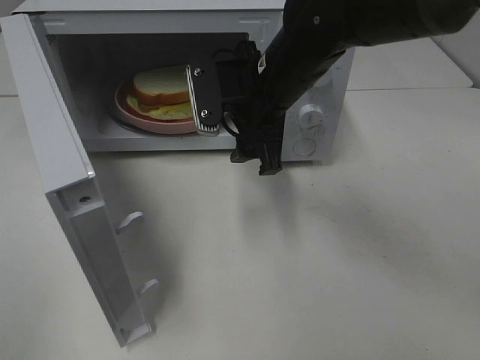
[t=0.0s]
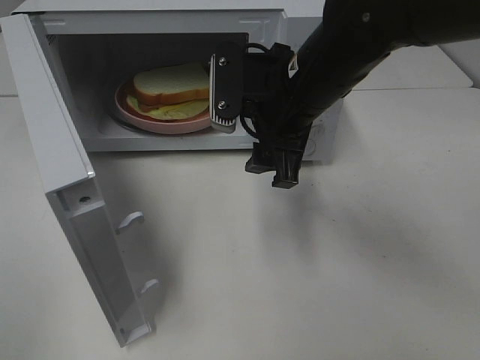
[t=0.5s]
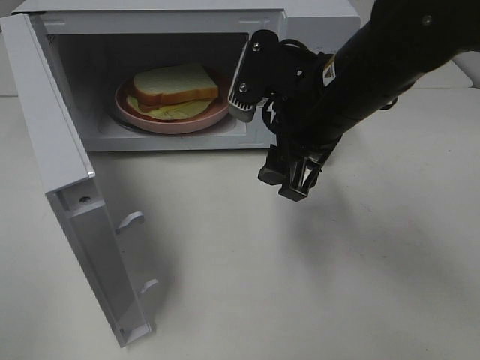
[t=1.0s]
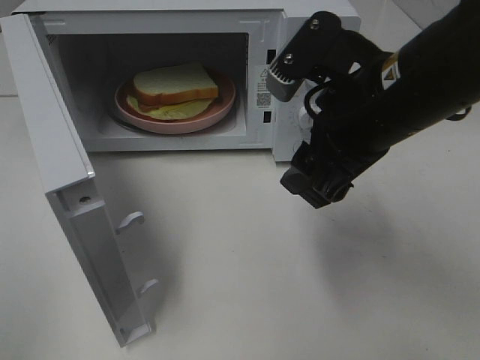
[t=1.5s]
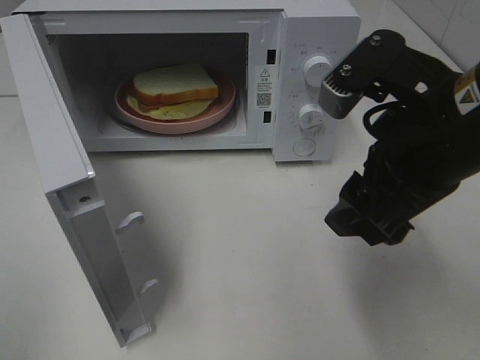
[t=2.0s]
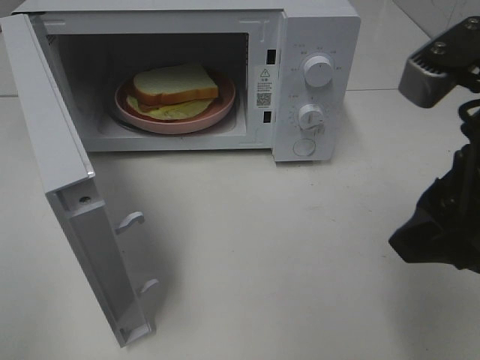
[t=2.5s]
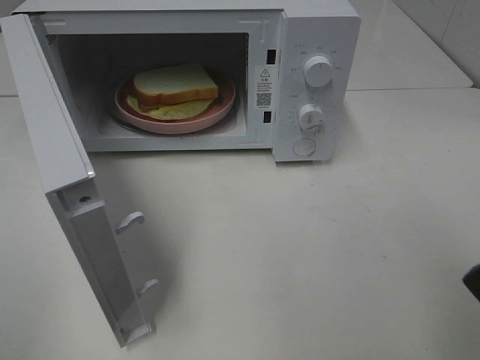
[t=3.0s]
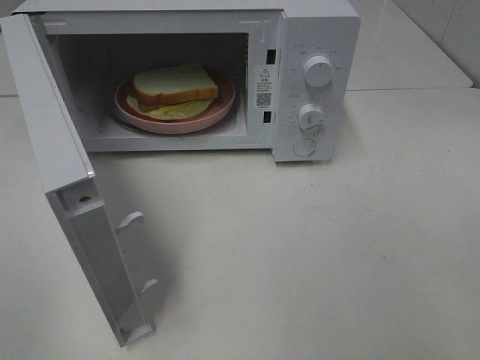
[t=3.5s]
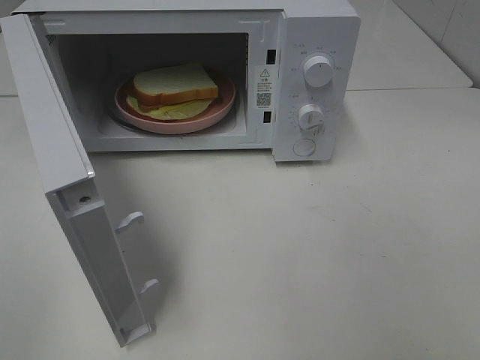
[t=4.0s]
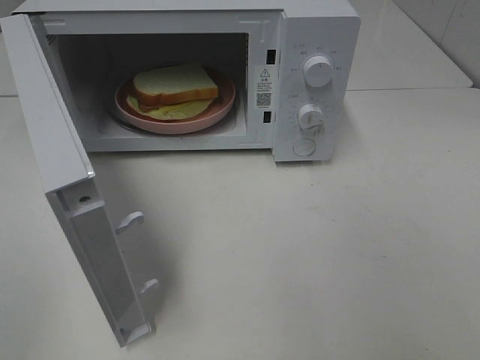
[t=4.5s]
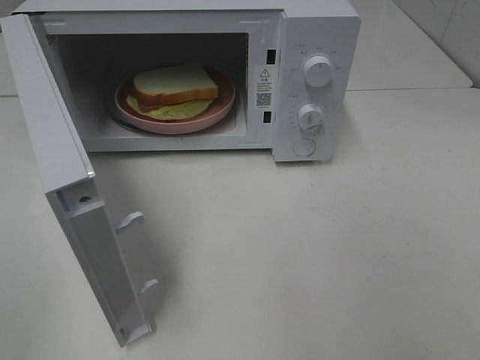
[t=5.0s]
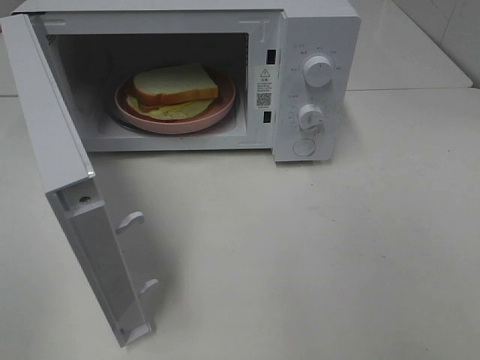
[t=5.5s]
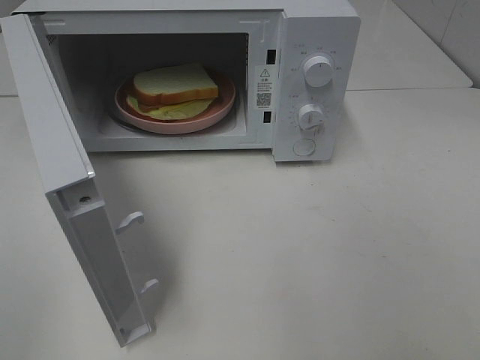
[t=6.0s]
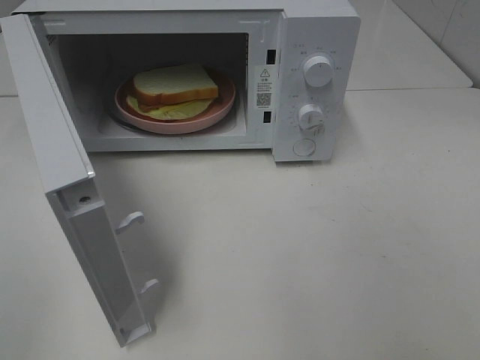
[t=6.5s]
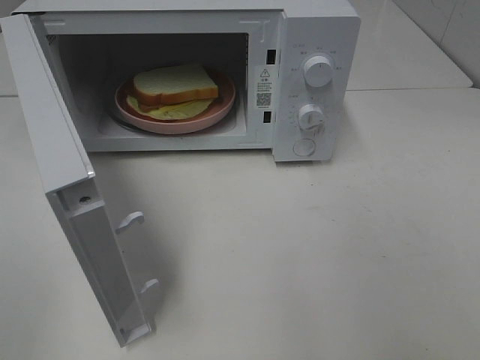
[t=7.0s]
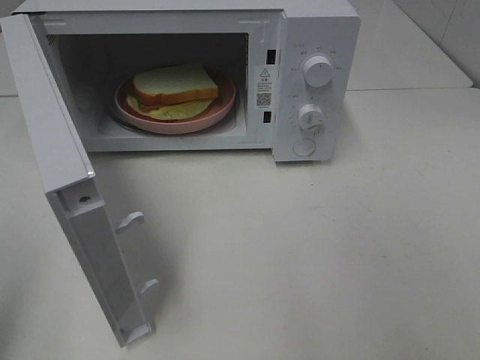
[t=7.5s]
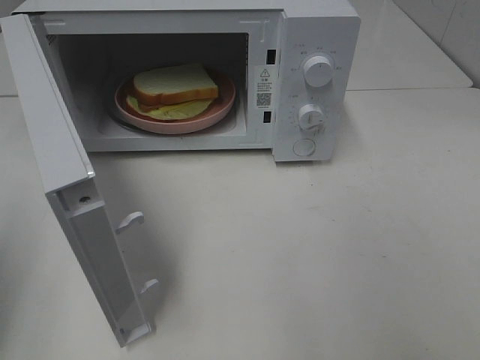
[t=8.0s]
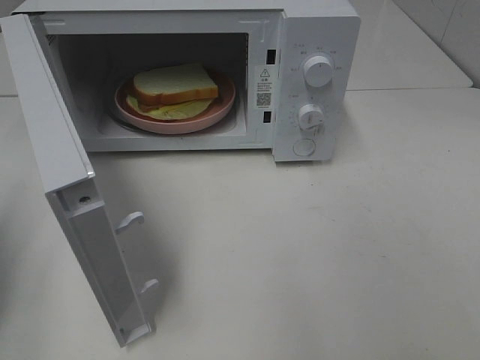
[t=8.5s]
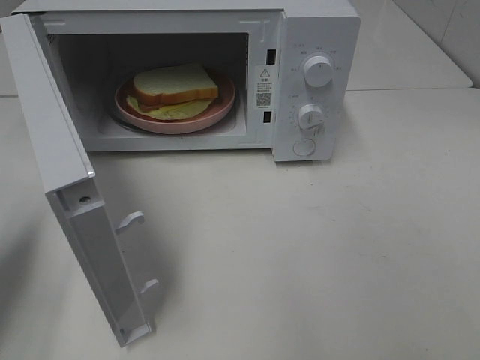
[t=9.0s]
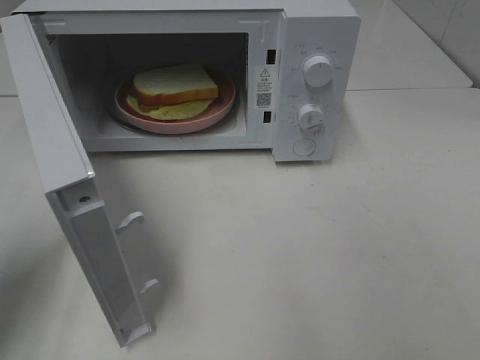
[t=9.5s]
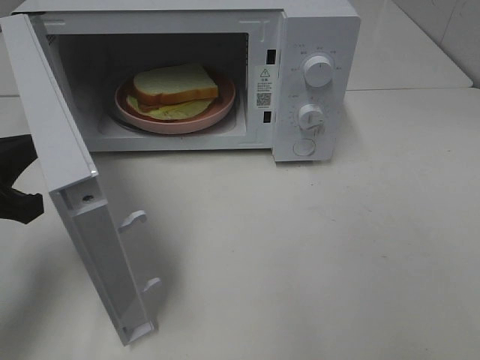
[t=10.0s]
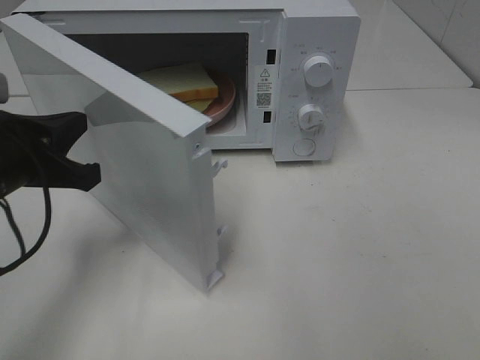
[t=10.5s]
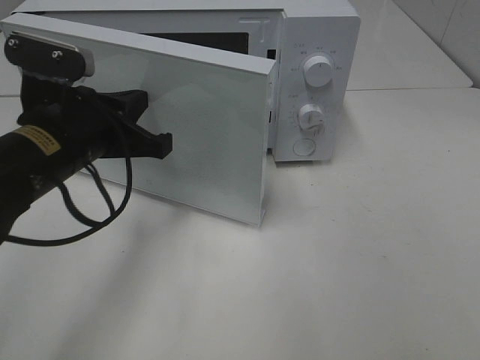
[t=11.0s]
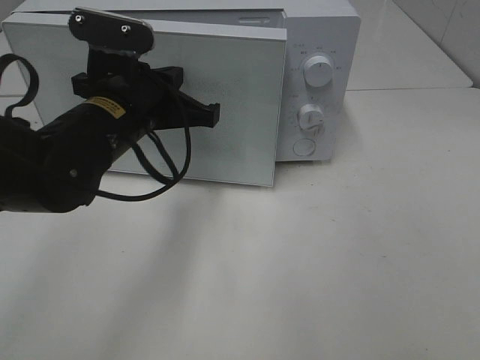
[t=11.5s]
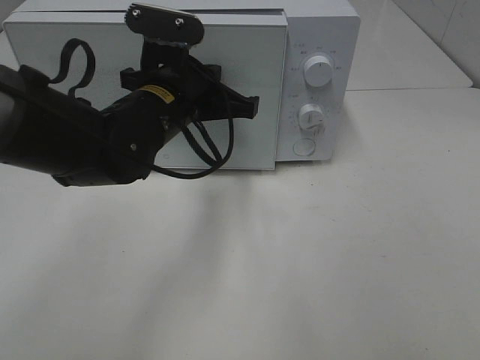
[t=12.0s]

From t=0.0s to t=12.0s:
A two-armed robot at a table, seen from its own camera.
Task of the whole recording: Heat Sandwich.
From t=0.0s to t=2.0s: The right gripper travels backward and to the right by roughly 20 cm.
From t=2.0s to t=4.0s: The right gripper shifts about 20 cm backward and to the right.
From t=8.0s to t=10.0s: The left gripper is displaced downward, forward and to the right by some 15 cm.
From t=10.0s to t=12.0s: The left gripper shifts about 25 cm to the right and forward.

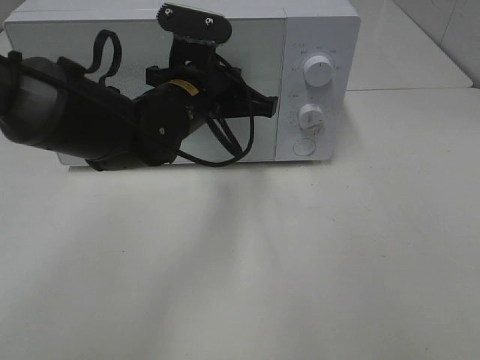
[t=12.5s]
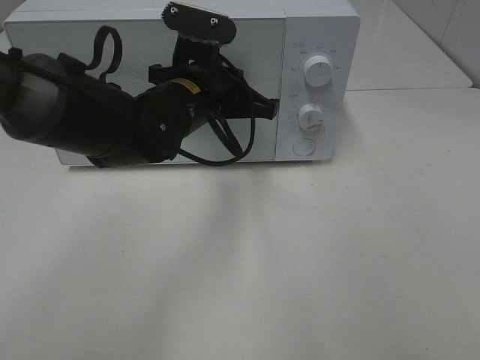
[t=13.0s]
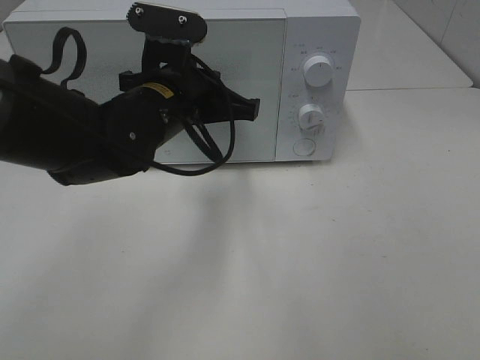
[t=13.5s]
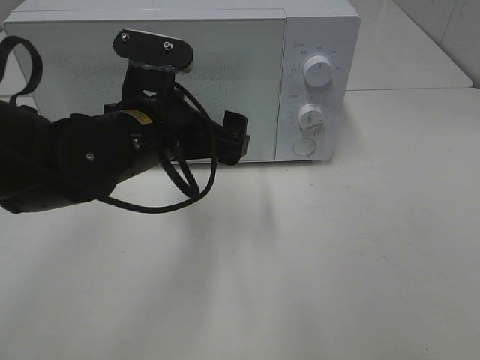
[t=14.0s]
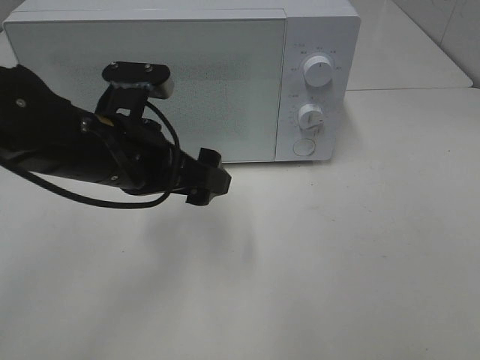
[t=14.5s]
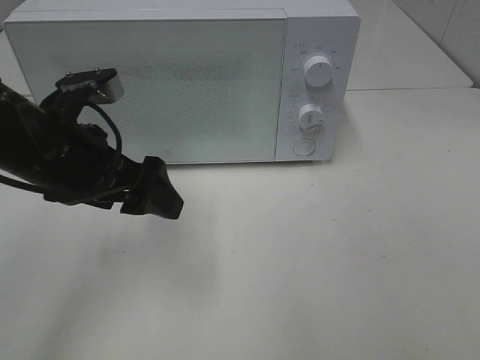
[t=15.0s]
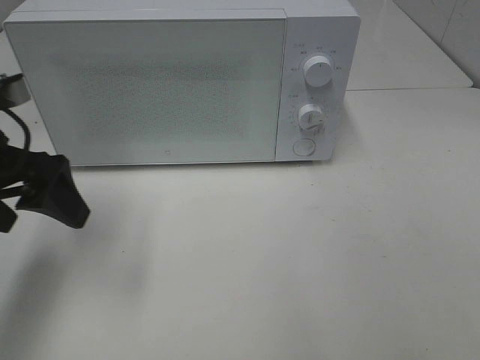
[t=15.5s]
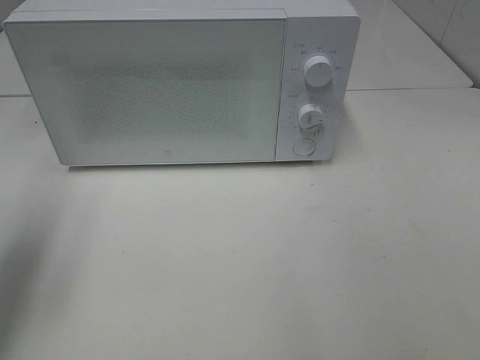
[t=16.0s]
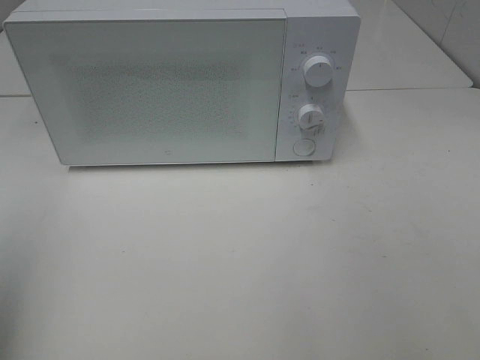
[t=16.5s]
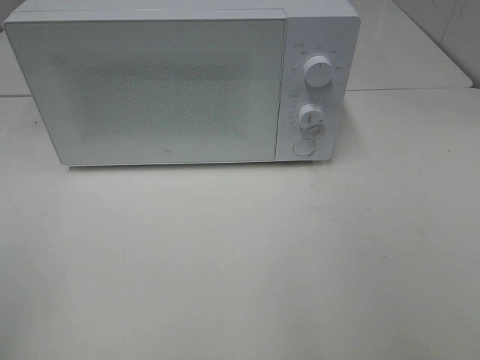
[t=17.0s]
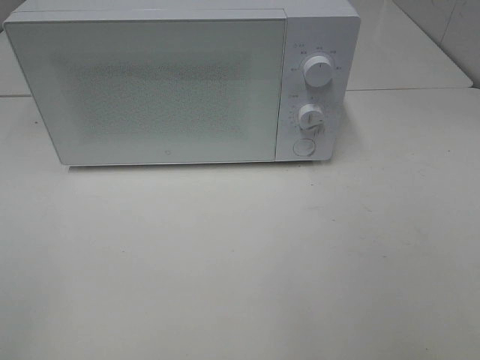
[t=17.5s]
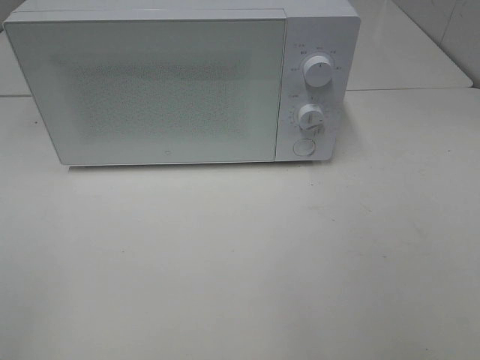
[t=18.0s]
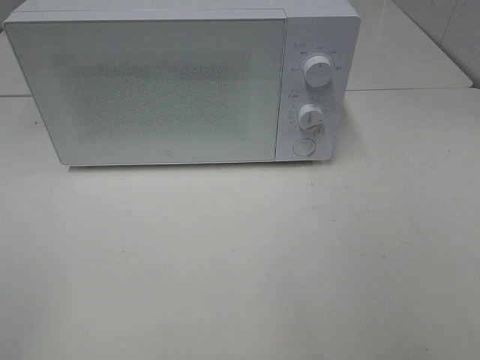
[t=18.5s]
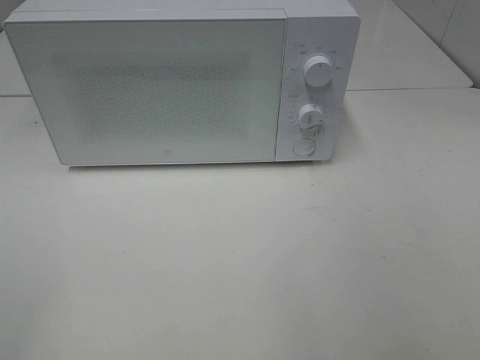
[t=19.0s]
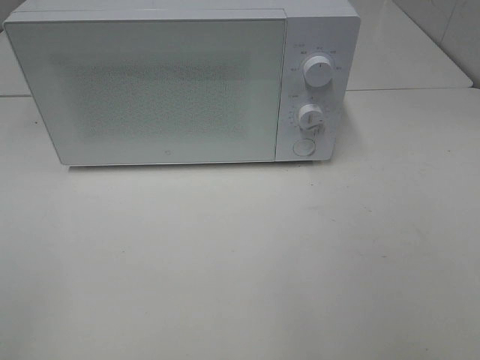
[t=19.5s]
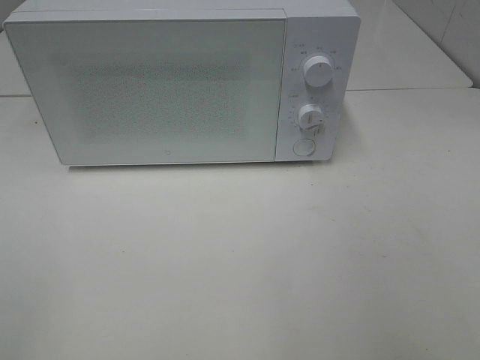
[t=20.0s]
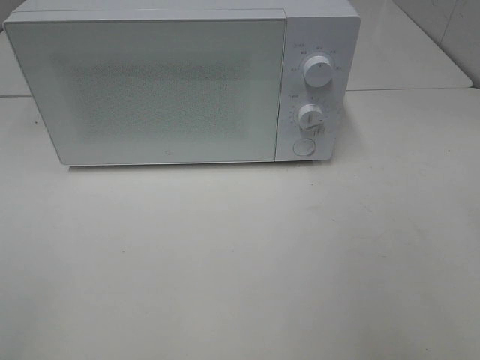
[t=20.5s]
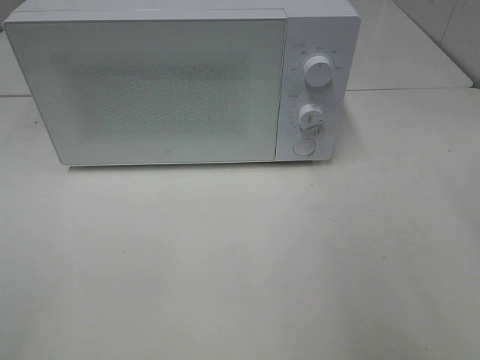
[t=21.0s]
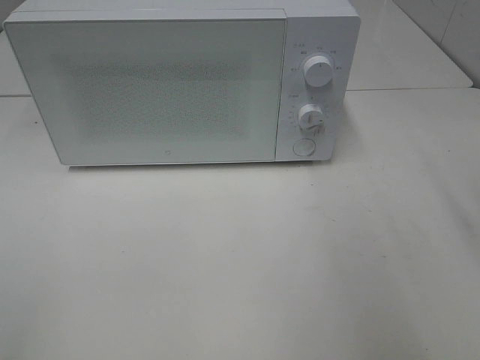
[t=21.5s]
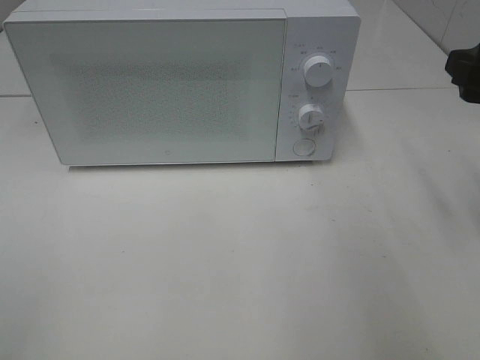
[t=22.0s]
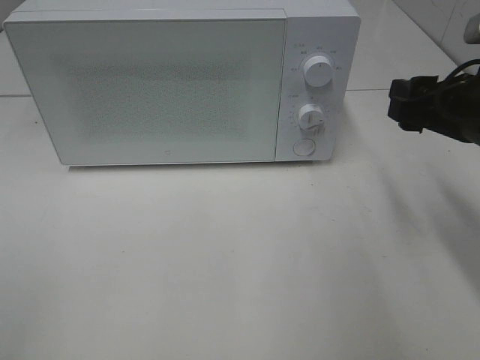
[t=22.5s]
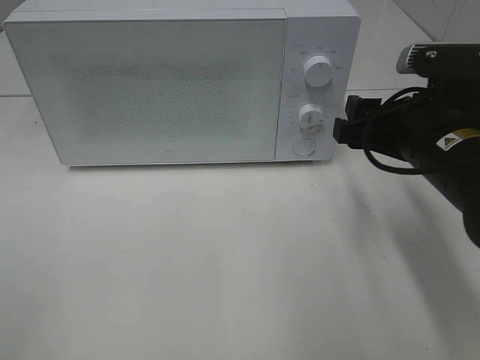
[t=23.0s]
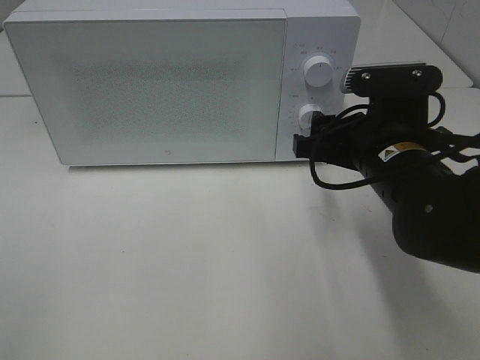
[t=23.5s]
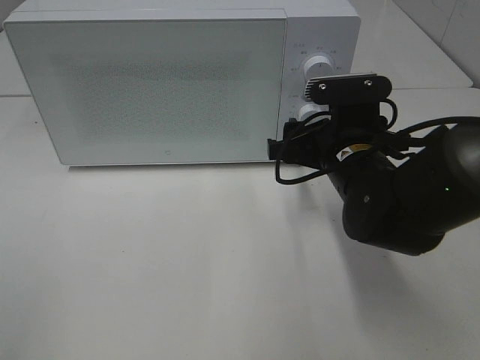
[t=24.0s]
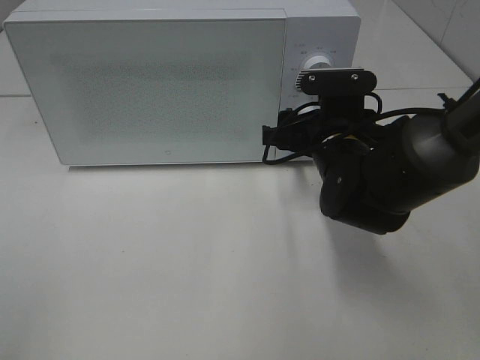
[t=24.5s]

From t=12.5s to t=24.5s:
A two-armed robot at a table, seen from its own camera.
Task of the whole recording: Heat Sandwich.
From t=12.5s to t=14.5s: The left gripper heads backward and to the left, covering approximately 10 cm, and opens up.
From t=14.5s to t=16.5s: The left gripper is displaced to the left, backward and upward by some 30 cm.
From t=16.5s to t=18.5s: The left gripper goes some 10 cm backward.
From t=20.5s to t=22.5s: The right gripper travels forward and downward by roughly 20 cm.
From t=22.5s to t=24.5s: The right gripper moves to the left, downward and forward, approximately 15 cm.

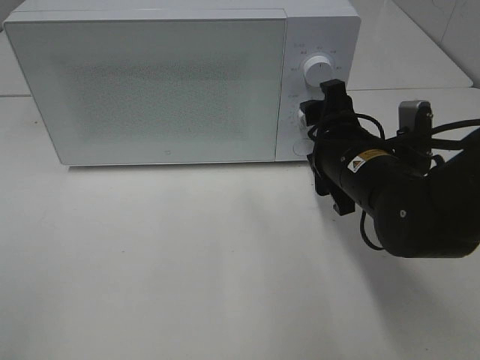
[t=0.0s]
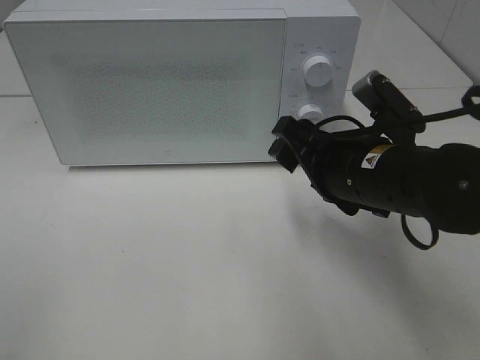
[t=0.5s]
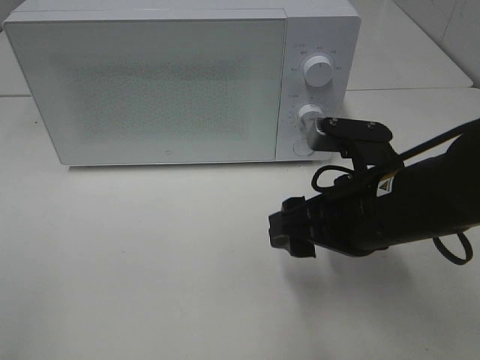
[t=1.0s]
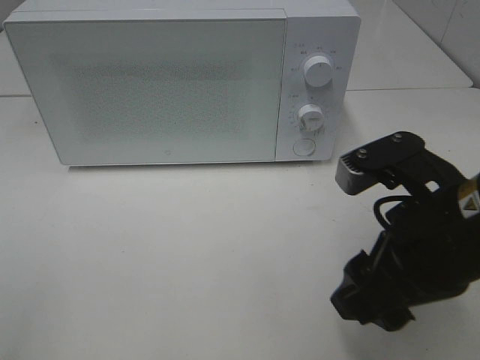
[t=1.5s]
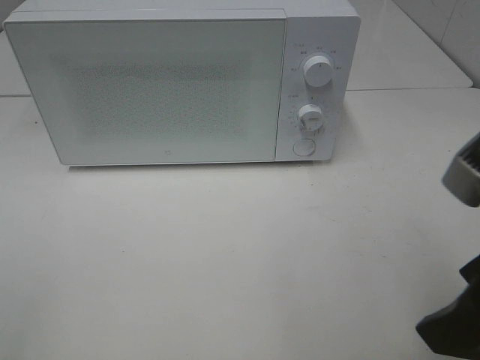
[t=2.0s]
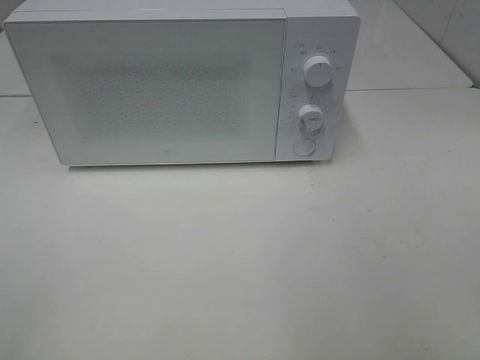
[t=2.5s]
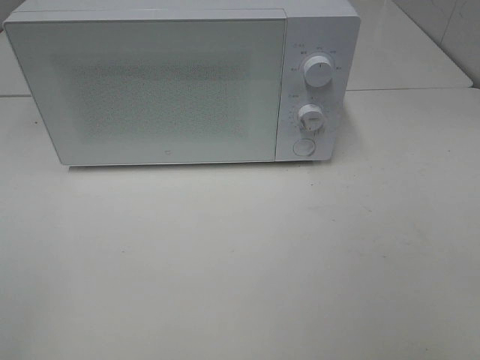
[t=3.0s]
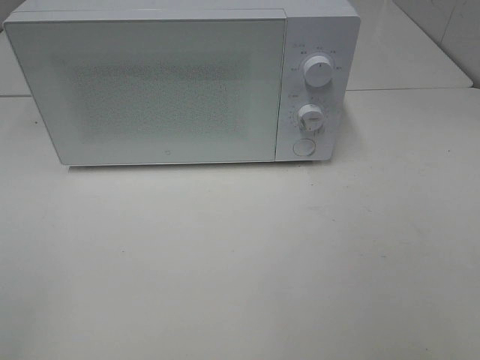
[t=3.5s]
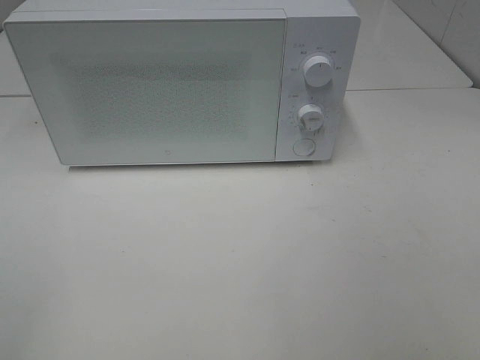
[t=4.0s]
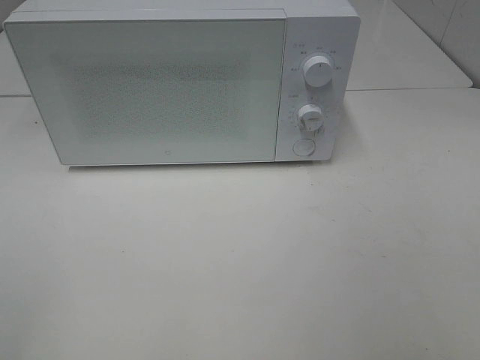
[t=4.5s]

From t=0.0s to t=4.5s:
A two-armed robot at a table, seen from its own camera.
Task of the whole recording: Heat Sandwich.
From t=0.0s to t=2.0s: The right gripper moves backward and upward, approximately 20 cm.
From t=2.0s to t=4.5s: The right gripper moves backward and to the right, about 15 cm.
